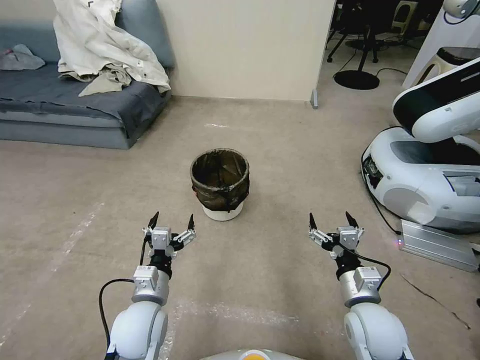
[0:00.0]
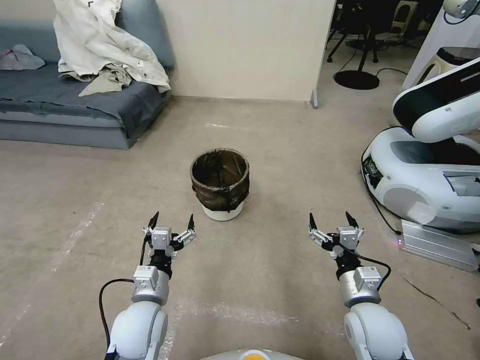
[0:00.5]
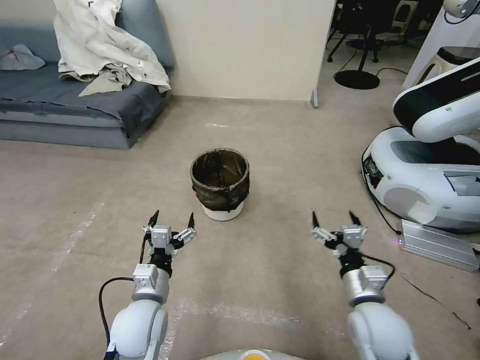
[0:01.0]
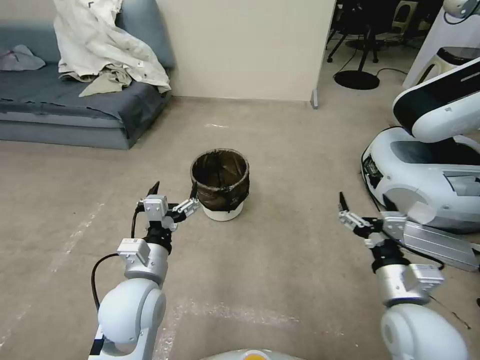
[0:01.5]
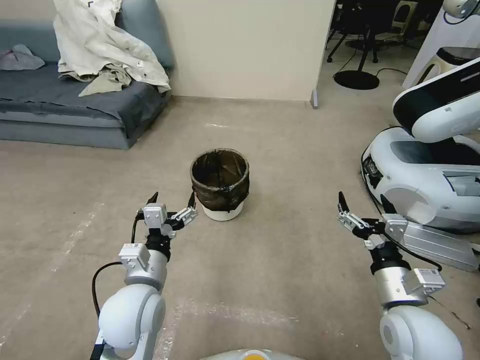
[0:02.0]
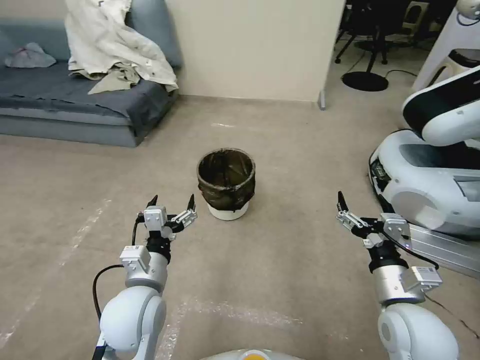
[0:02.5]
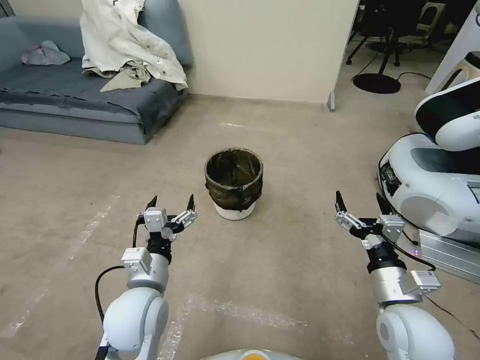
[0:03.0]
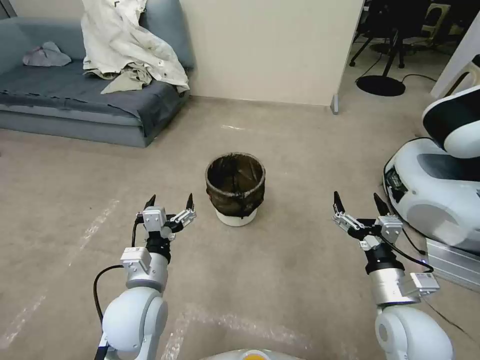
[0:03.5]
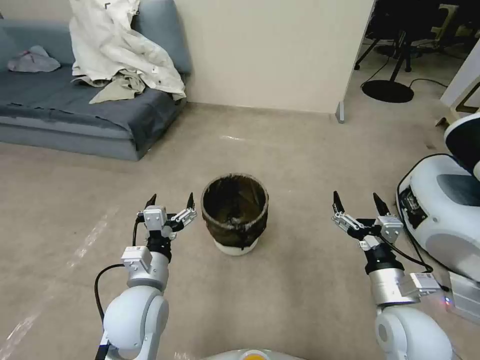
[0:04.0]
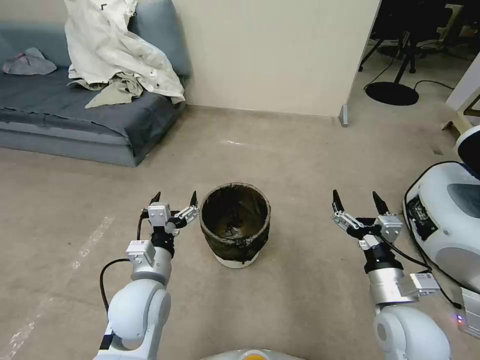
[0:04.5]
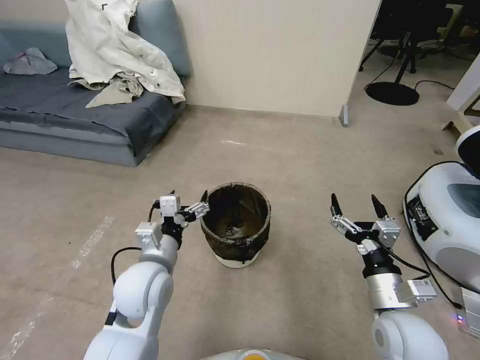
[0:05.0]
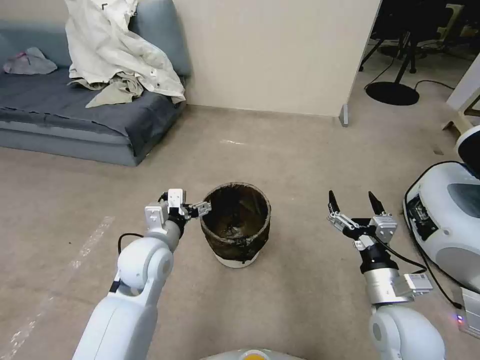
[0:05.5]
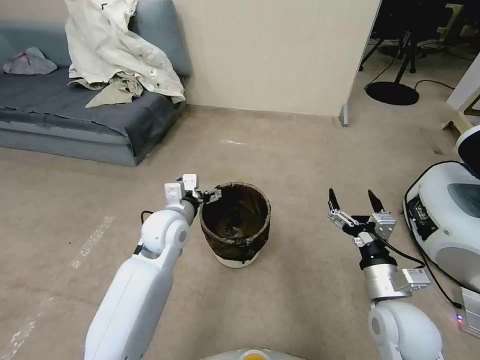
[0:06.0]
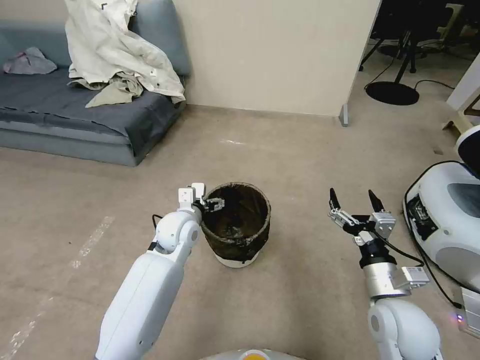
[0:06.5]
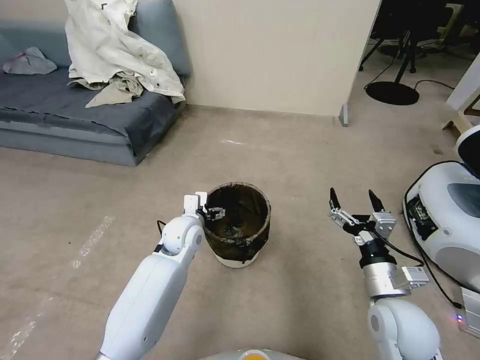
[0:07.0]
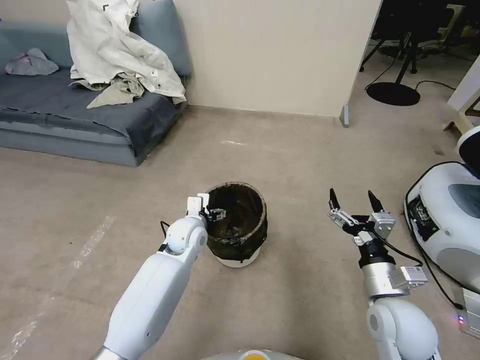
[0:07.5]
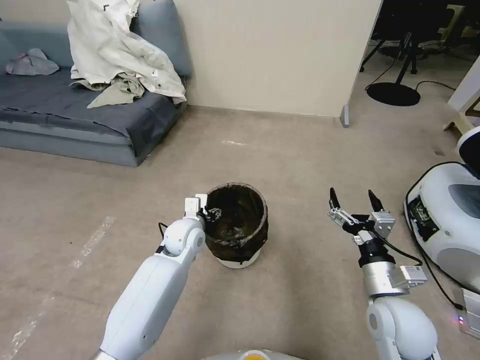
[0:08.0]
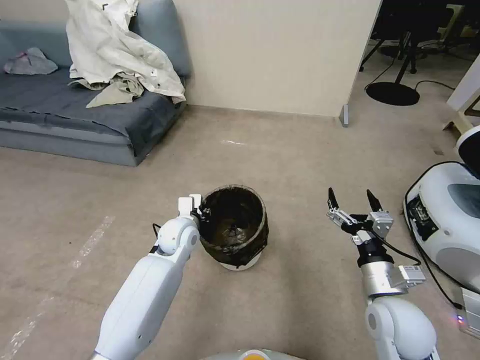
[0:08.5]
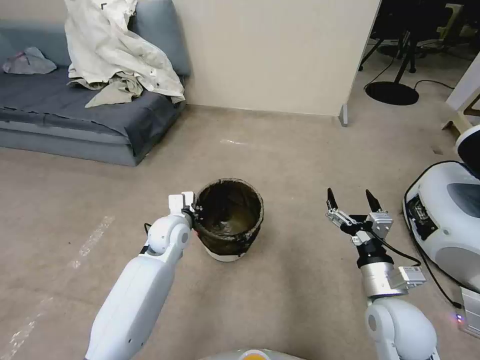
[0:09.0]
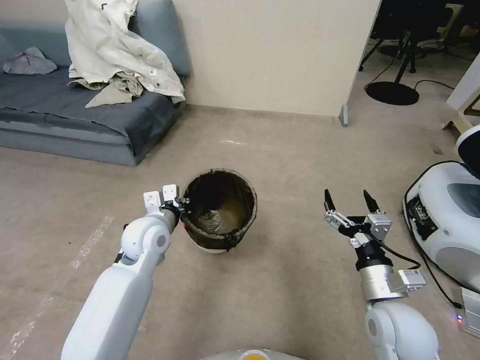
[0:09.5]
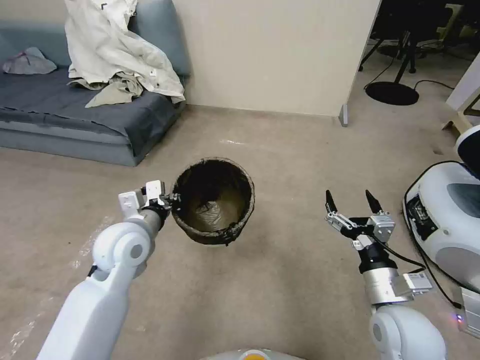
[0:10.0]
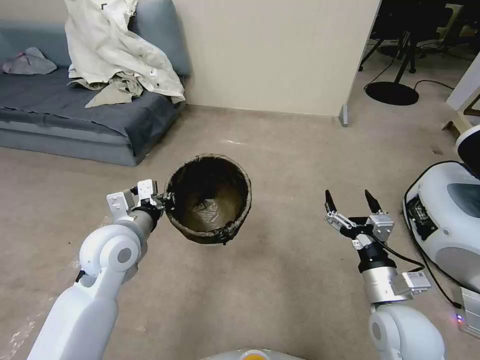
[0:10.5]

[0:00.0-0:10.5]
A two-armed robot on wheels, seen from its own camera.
Task of the whole recording: Pick up the trash can from the floor.
0:04.0 to 0:06.5: The left gripper shifts roughly 15 cm forward.
0:06.5 to 0:08.5: The left gripper closes up.
0:08.5 to 0:10.5: The left gripper moves upward, backward and to the left, some 20 cm.
